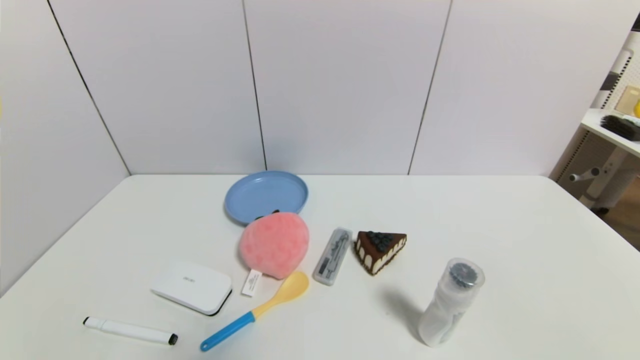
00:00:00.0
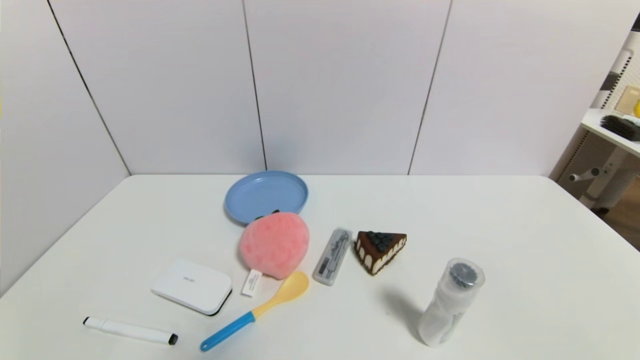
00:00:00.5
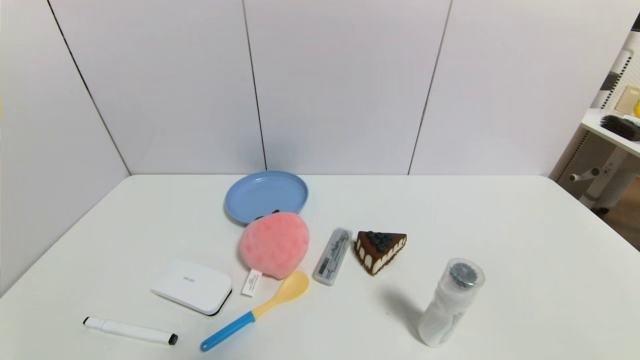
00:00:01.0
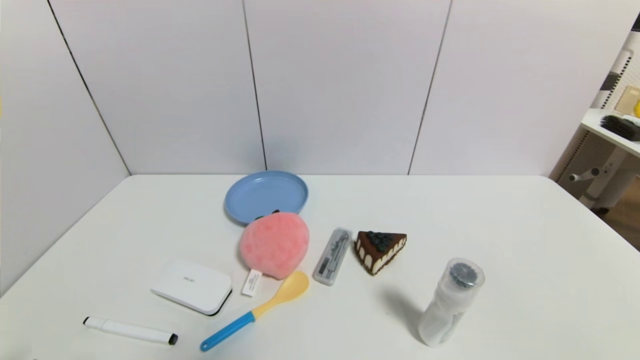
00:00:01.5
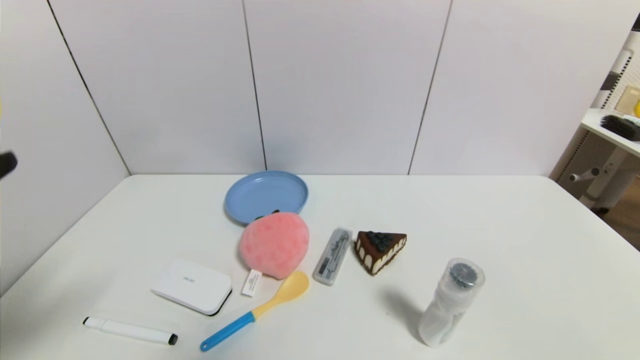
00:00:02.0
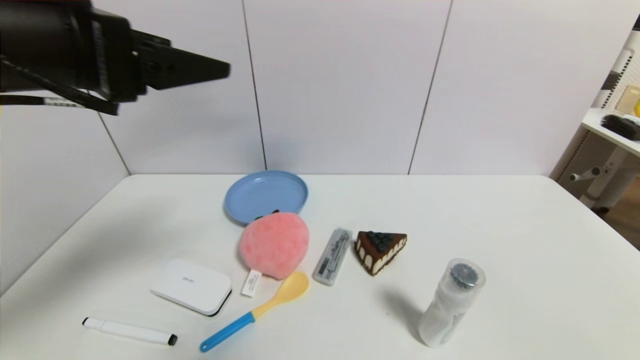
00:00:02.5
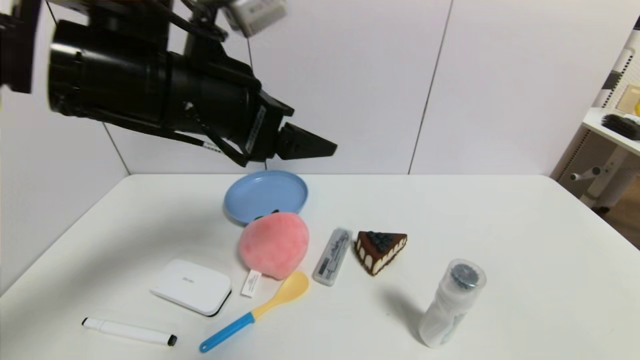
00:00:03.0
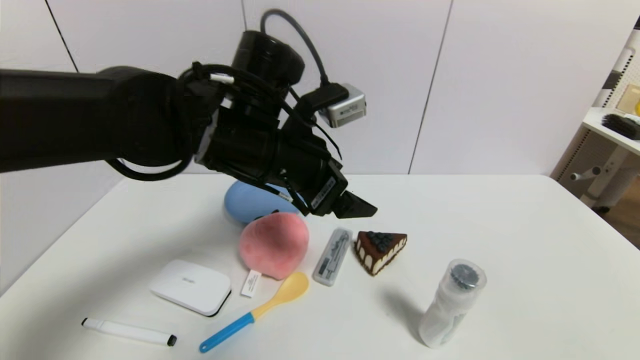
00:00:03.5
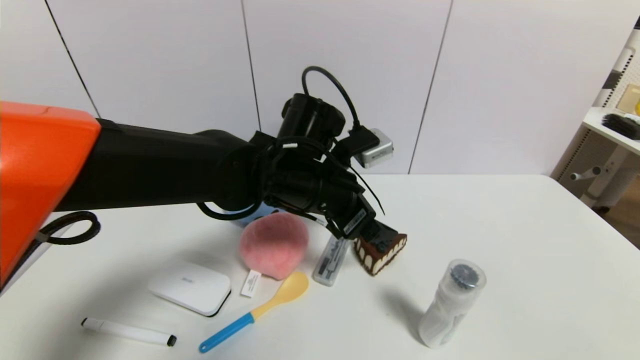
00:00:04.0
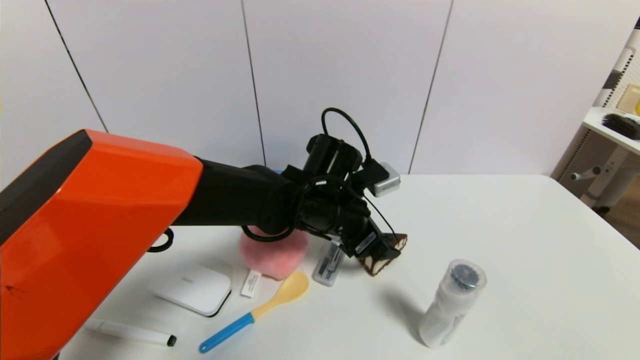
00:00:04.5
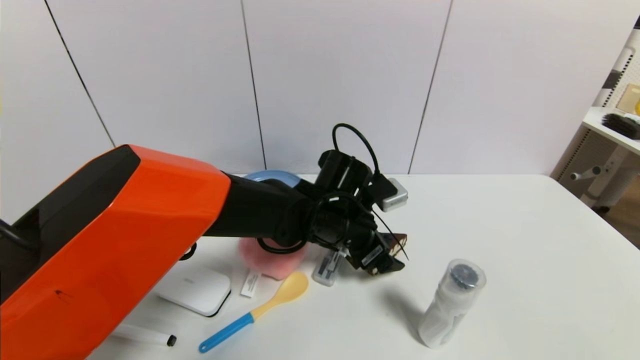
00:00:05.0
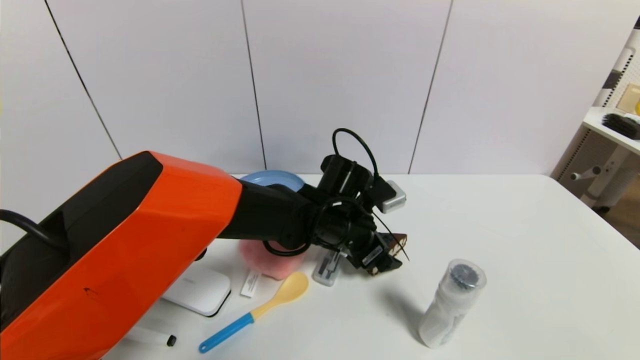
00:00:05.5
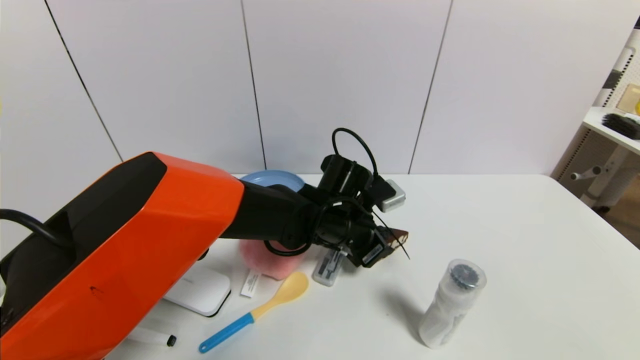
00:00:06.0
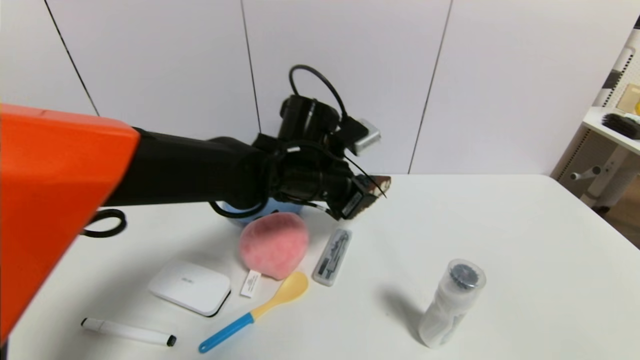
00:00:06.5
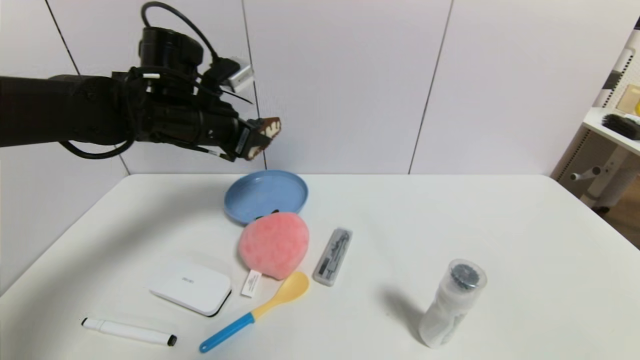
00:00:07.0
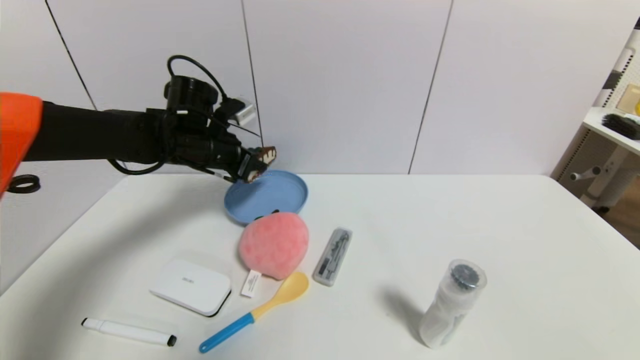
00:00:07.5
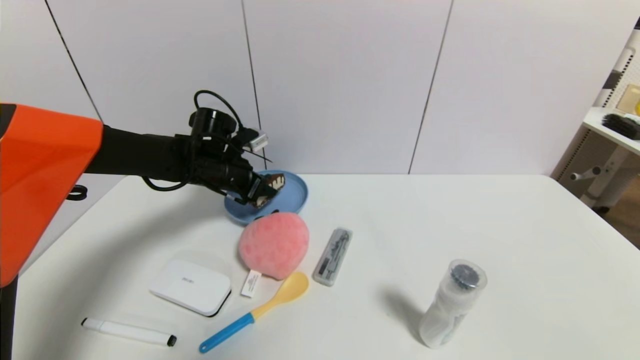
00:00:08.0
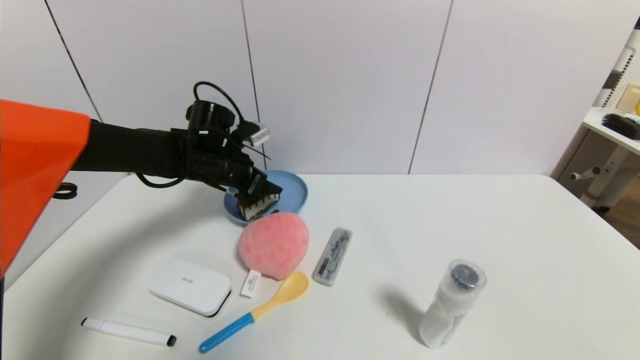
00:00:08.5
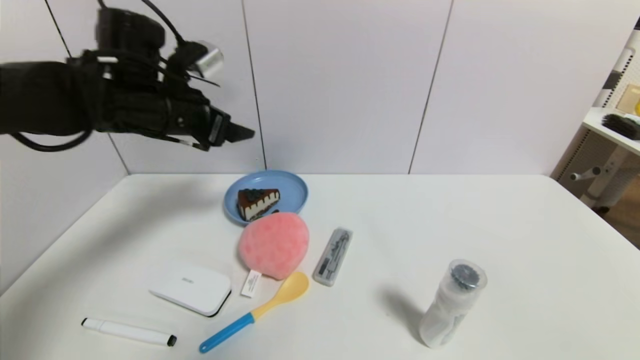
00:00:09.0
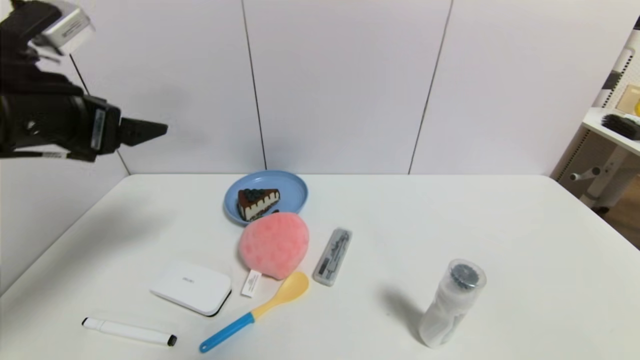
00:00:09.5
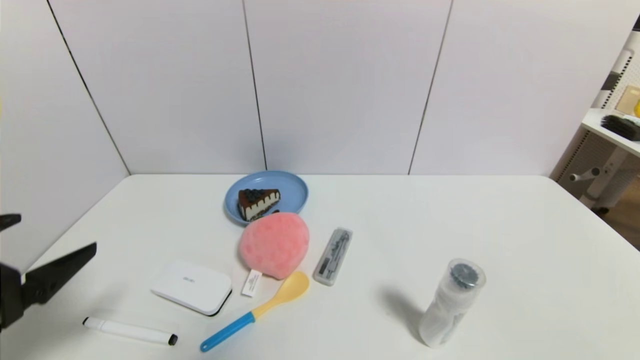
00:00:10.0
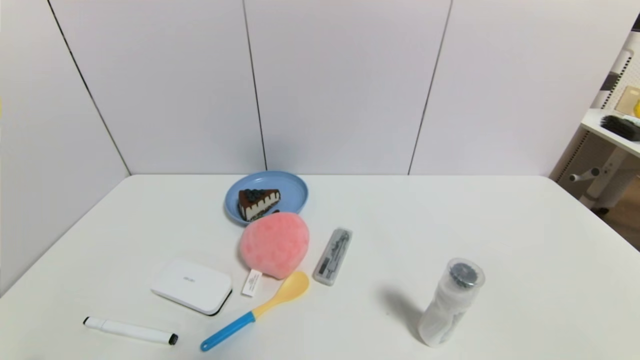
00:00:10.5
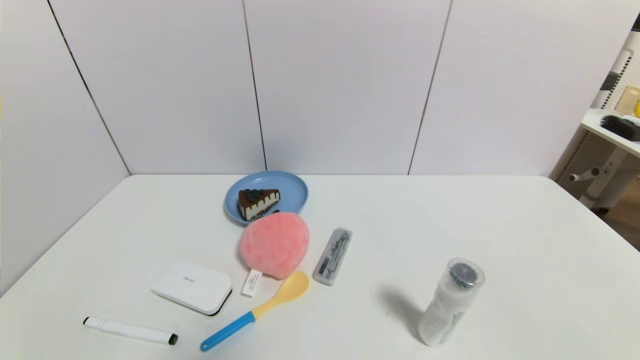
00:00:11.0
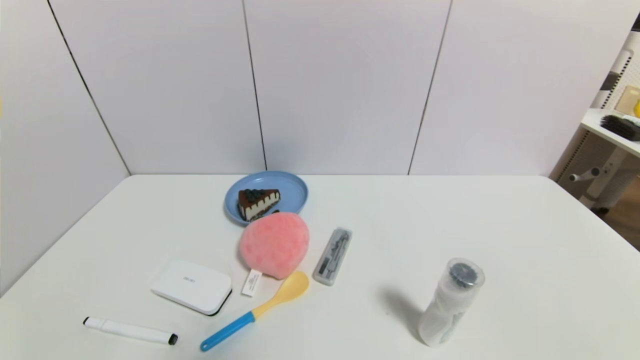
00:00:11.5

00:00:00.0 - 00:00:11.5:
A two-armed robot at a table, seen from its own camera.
Task of the whole recording: use a gripper to pick the target object and place on the blue plate.
Step, 00:00:00.0 - 00:00:06.0: Grasp the chocolate cake with the left gripper.
Step, 00:00:06.5 - 00:00:08.0: Place the chocolate cake on the blue plate with the left gripper.
00:00:00.0 - 00:00:02.0: The left gripper moves upward, about 25 cm.
00:00:02.0 - 00:00:04.0: The left gripper shifts some 35 cm to the right and forward.
00:00:04.0 - 00:00:06.0: The left gripper goes roughly 10 cm downward, and closes up.
00:00:06.0 - 00:00:07.5: The left gripper moves to the left and upward, about 25 cm.
00:00:07.5 - 00:00:09.5: The left gripper goes roughly 25 cm backward, upward and to the left, and opens.
00:00:09.5 - 00:00:11.5: The left gripper heads downward and backward, covering some 35 cm.
